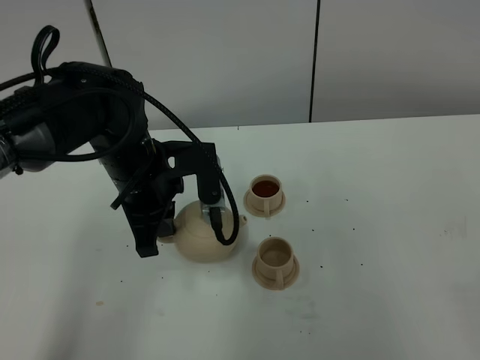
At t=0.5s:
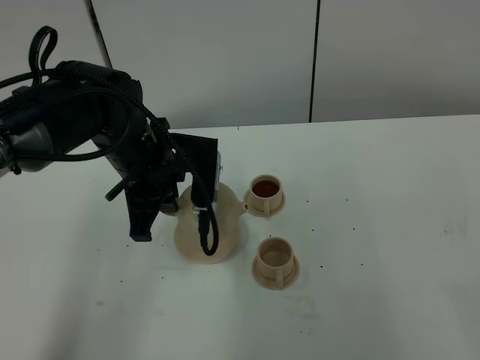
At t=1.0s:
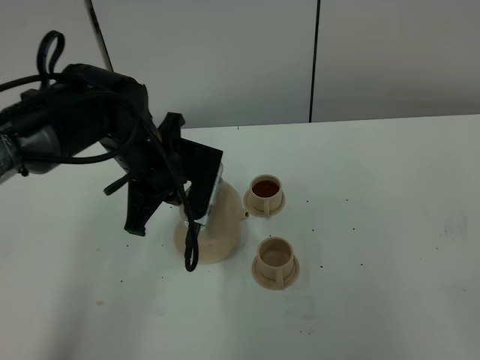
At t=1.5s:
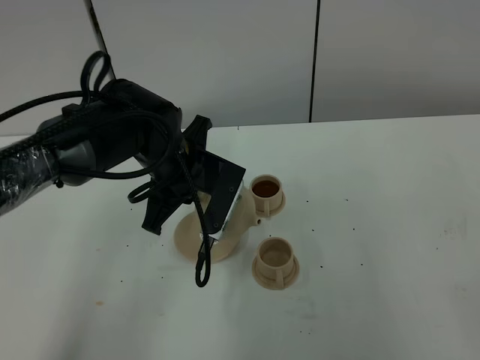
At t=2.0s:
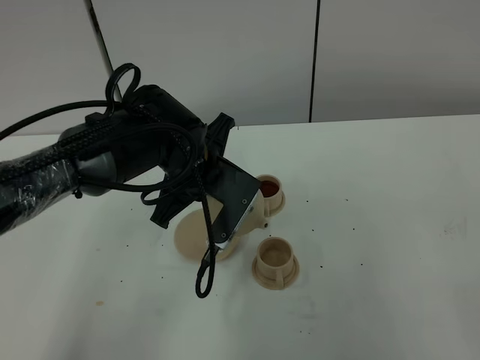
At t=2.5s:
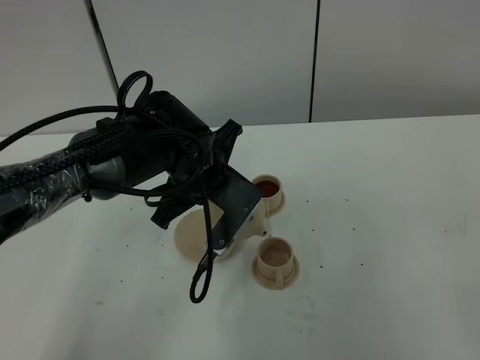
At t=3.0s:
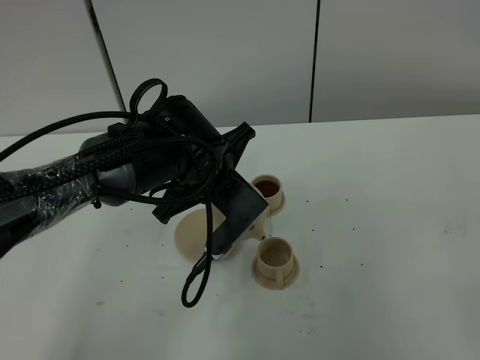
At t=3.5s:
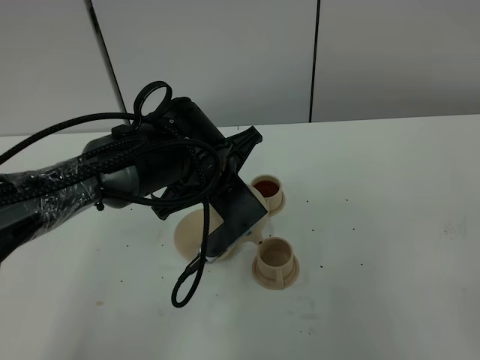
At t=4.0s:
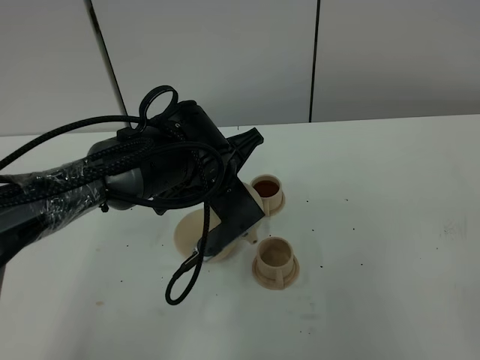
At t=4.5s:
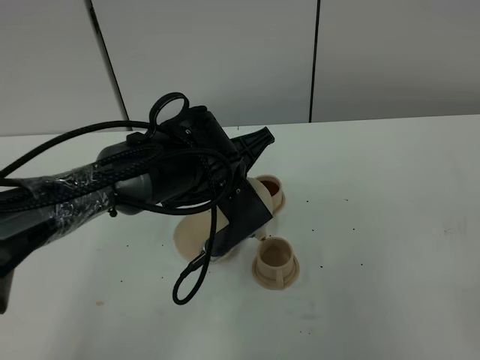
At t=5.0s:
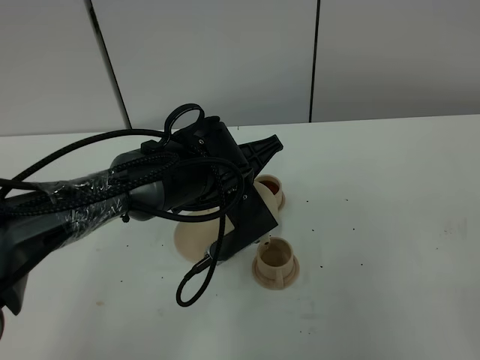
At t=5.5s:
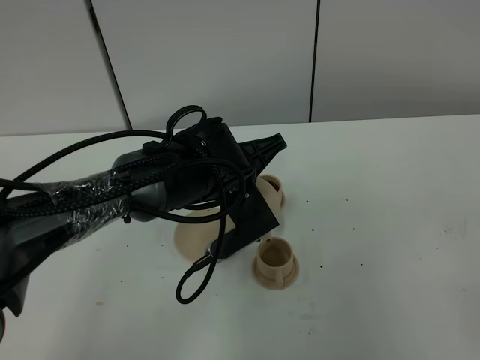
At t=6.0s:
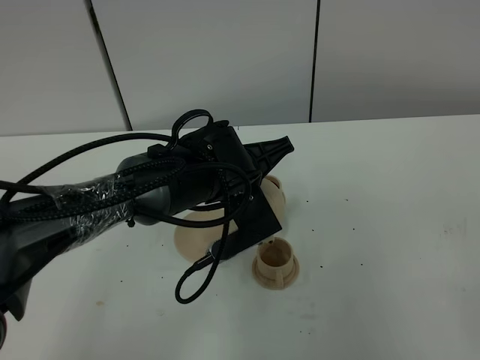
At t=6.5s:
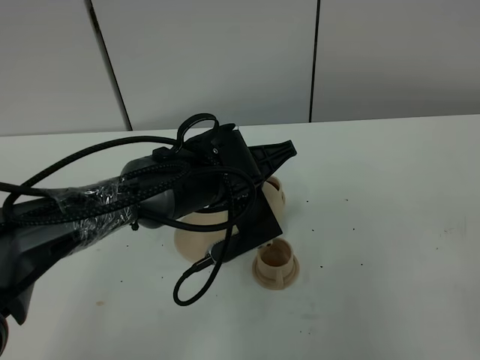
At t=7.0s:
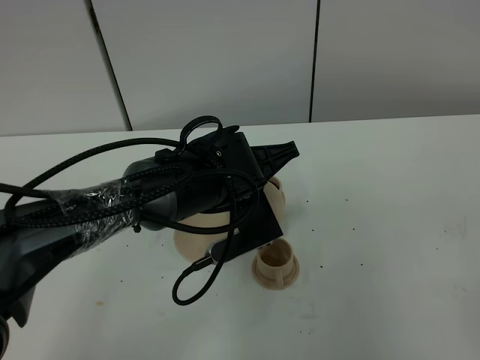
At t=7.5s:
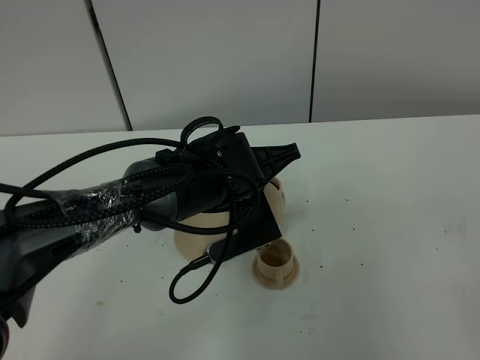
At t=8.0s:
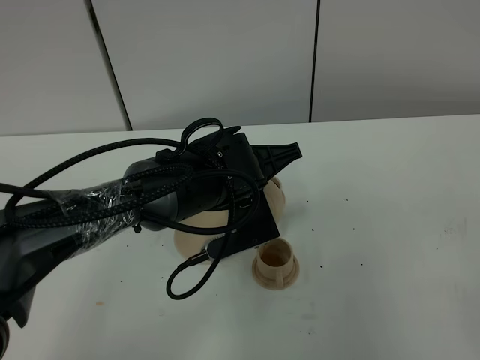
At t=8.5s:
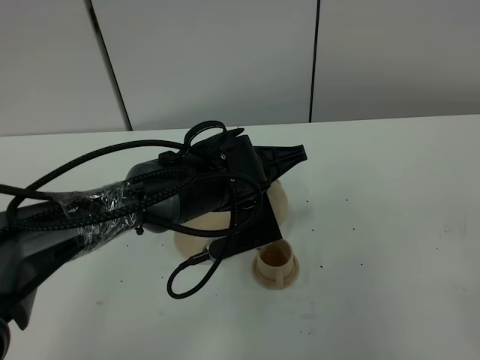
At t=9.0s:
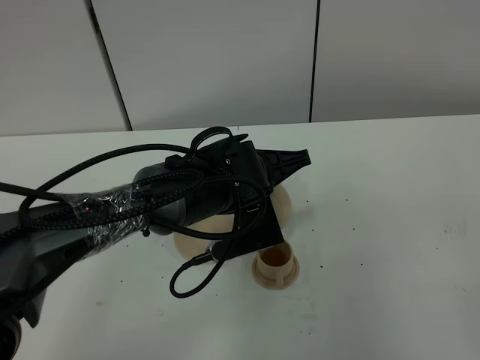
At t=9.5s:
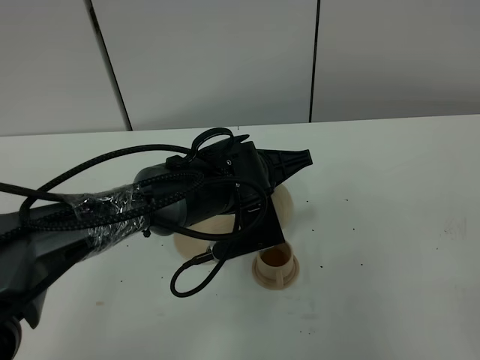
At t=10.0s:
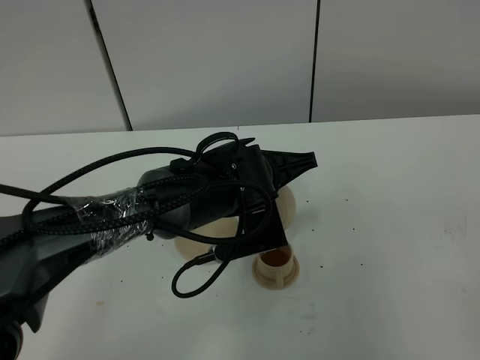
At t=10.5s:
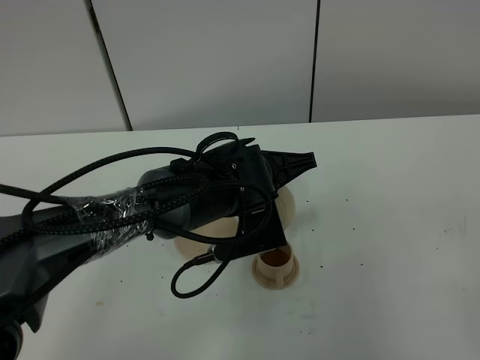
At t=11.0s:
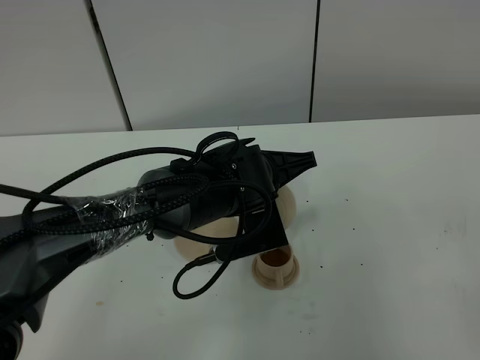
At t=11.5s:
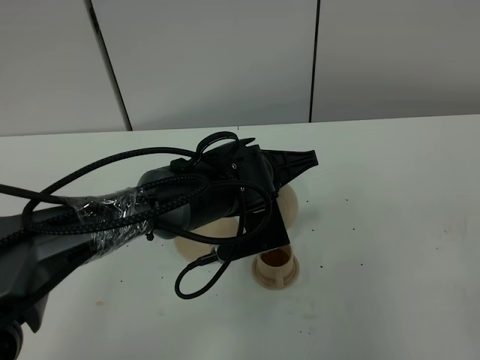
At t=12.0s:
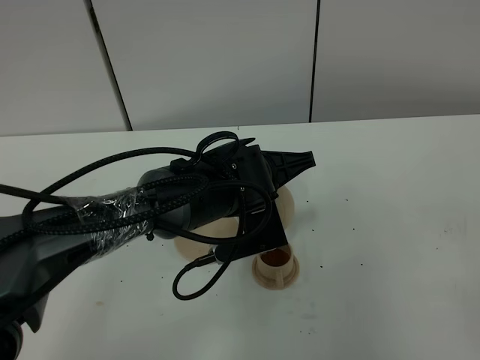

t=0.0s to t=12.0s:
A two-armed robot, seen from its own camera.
Task of the whole recording: grasp the brown teapot and pour the tea into the two brown teacups one by one, put the brown teapot back in its original place.
t=0.0s to t=2.0s: The left gripper goes about 5 cm to the right.
t=4.0s to t=8.0s: The grippers stay close to where they were, moving slightly.
t=8.0s to t=10.0s: The grippers stay close to where they were, moving slightly.
t=10.0s to t=12.0s: Neither gripper changes place.

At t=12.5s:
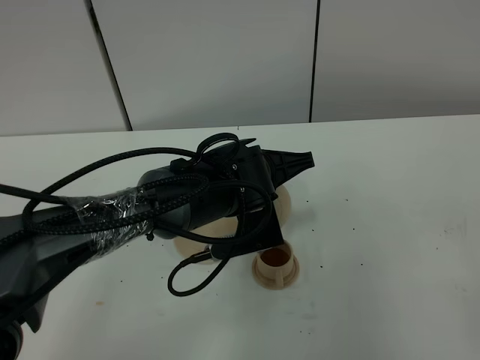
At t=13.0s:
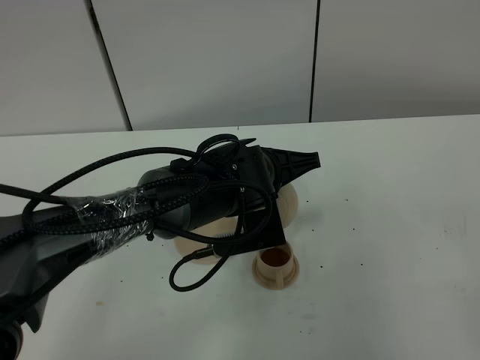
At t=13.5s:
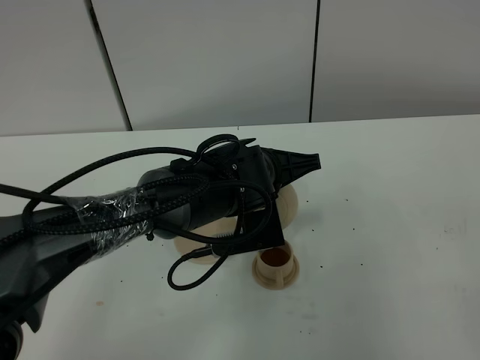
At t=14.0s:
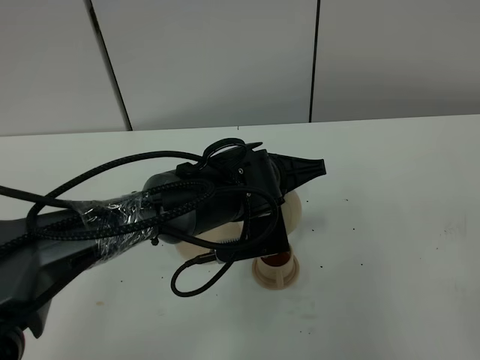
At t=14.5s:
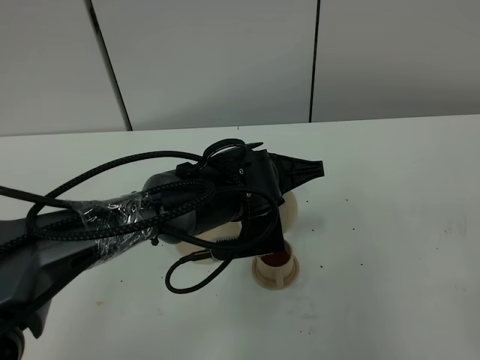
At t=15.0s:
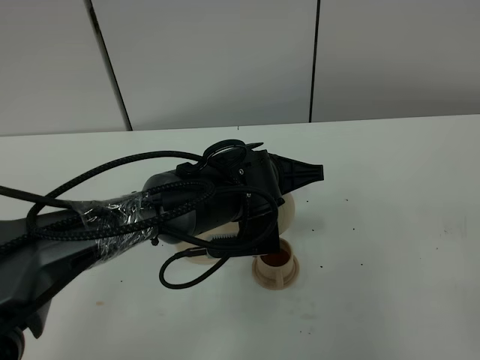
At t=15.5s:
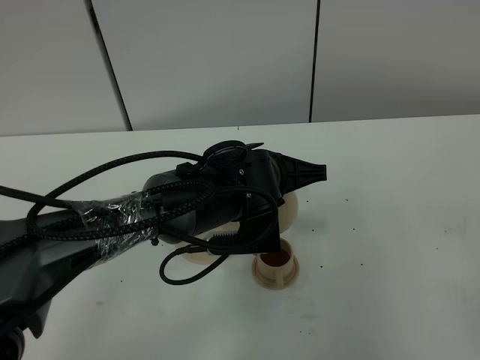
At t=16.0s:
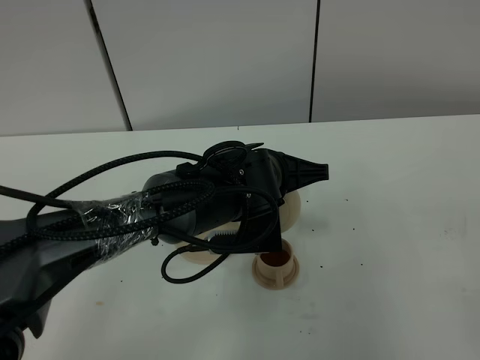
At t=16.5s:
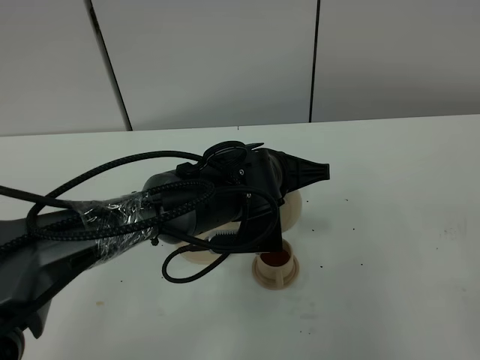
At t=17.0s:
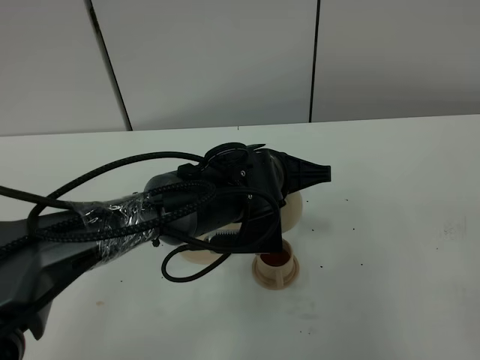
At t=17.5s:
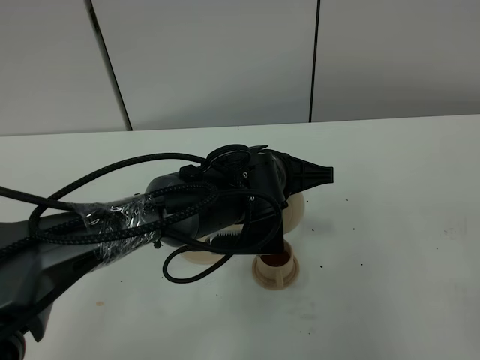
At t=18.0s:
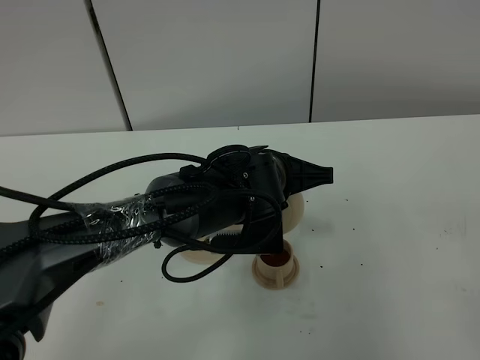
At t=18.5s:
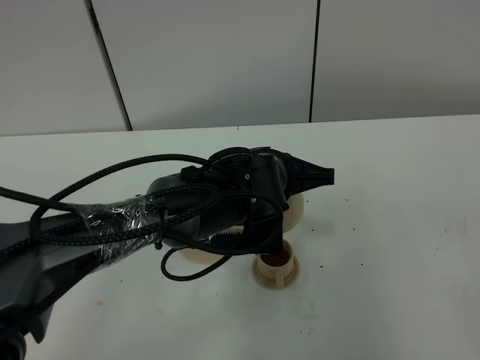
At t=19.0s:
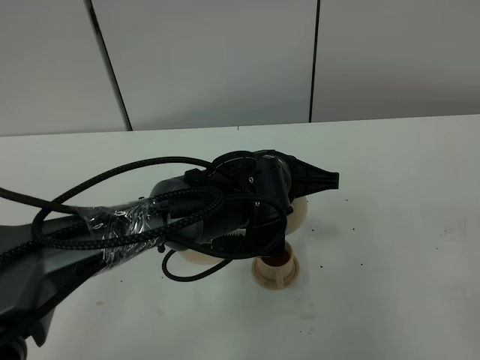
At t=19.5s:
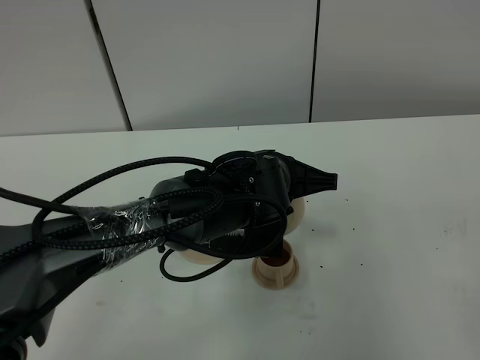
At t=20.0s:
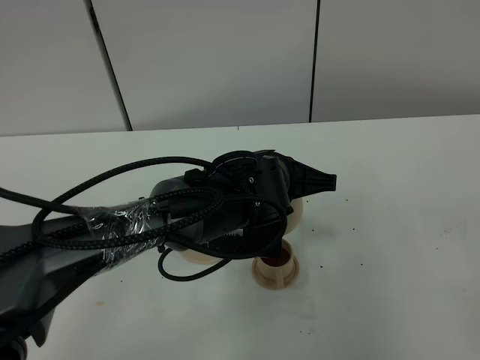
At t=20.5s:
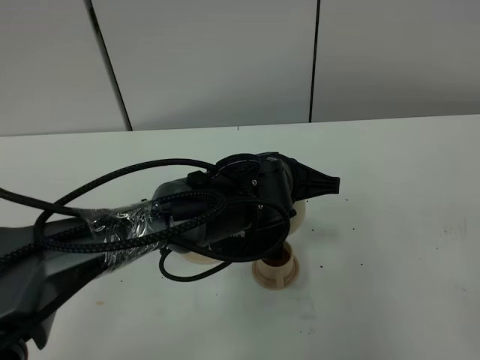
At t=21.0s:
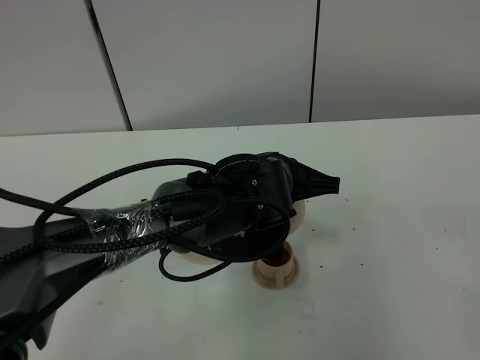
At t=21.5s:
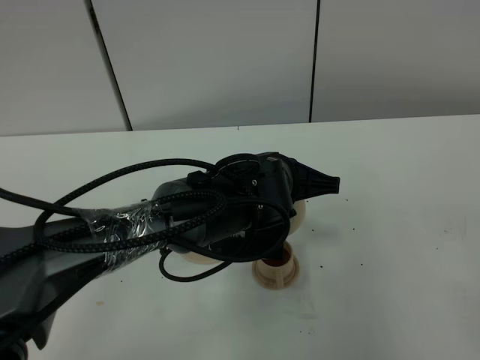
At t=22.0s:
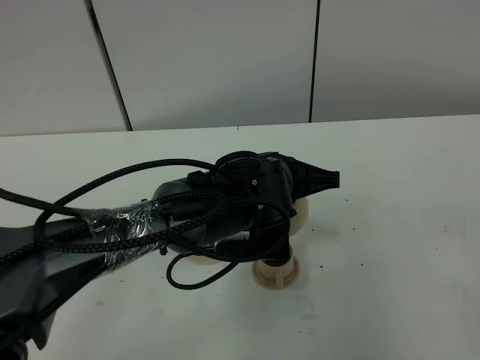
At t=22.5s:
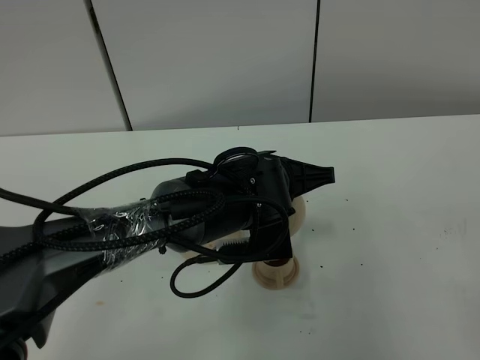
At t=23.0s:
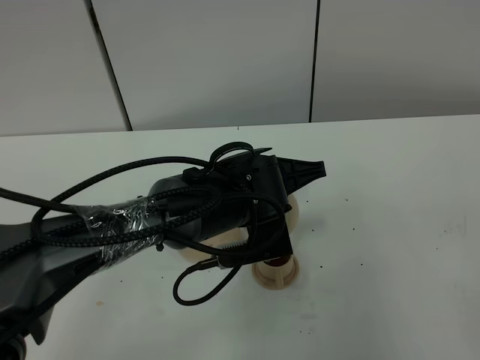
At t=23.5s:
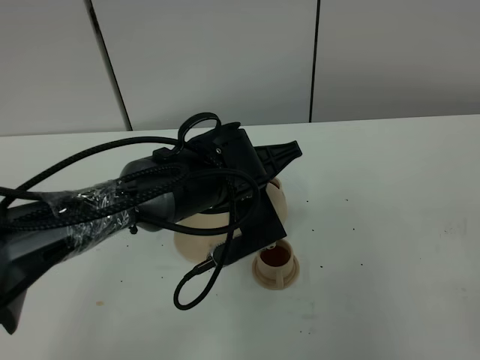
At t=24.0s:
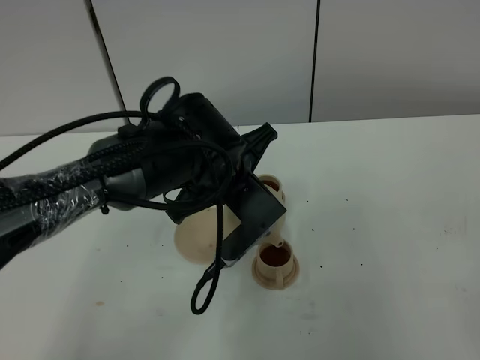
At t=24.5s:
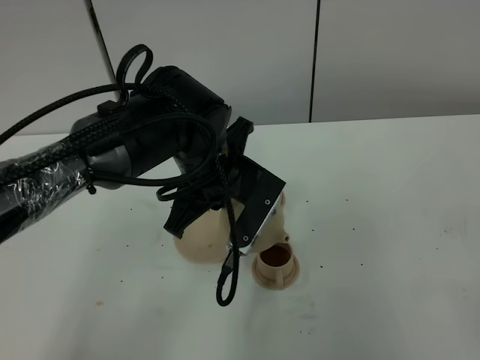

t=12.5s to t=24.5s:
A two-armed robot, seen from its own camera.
Task of the whole recording: grasp the brown teapot and pour the tea into the two brown teacups one by one, put the brown teapot back in its original place.
Step, t=12.5s to t=23.5s: Pour tea into the teacup with the left gripper.
t=12.5s to t=16.5s: The grippers move only a little.
t=16.5s to t=18.5s: Neither gripper changes place.
t=18.5s to t=20.5s: The two grippers keep their place.
t=20.5s to t=22.5s: There are only small adjustments of the grippers.
t=22.5s to t=24.5s: The left gripper travels to the left by about 5 cm.

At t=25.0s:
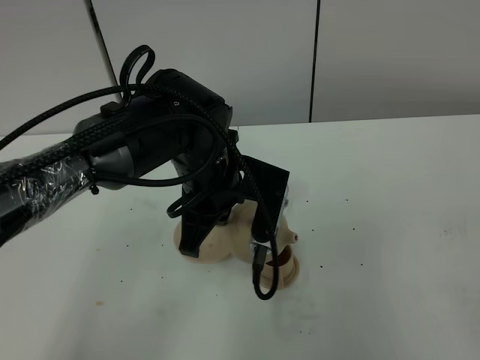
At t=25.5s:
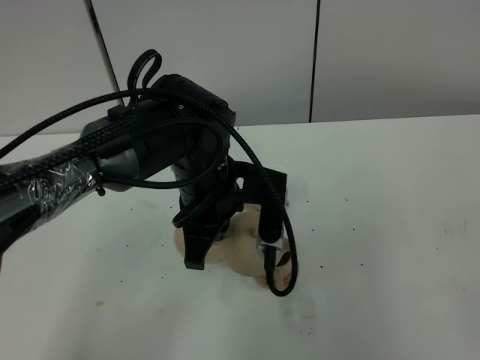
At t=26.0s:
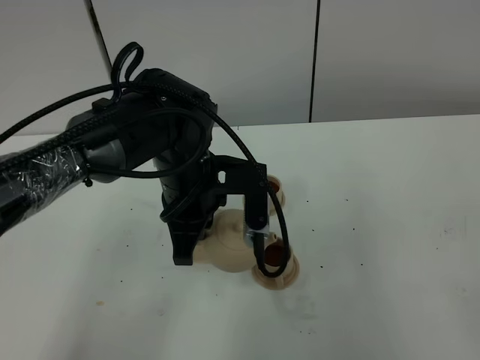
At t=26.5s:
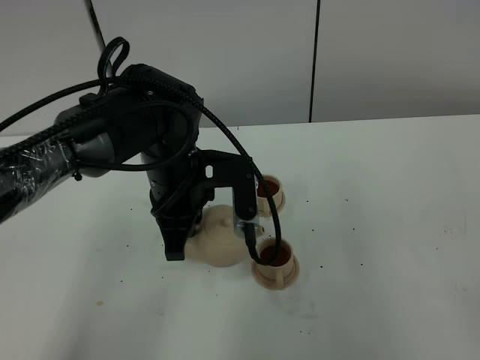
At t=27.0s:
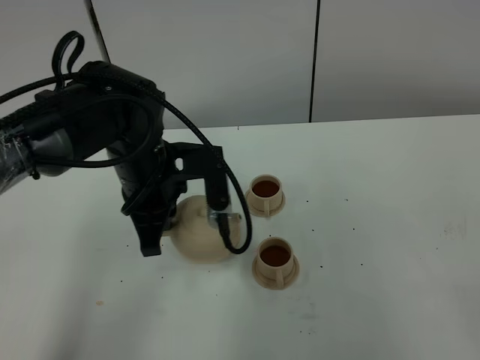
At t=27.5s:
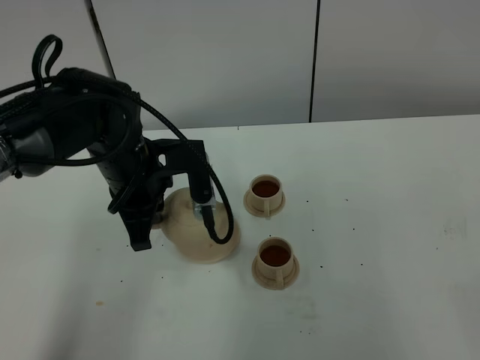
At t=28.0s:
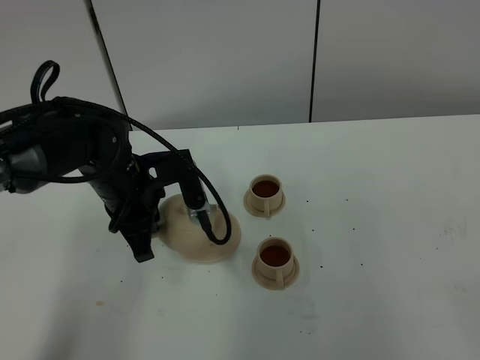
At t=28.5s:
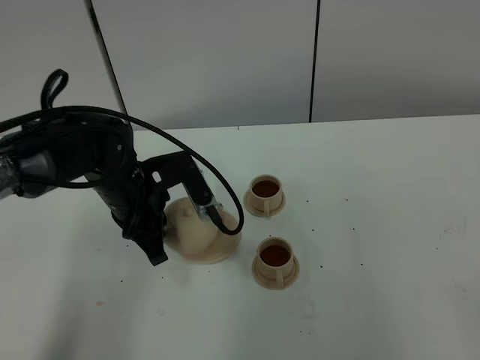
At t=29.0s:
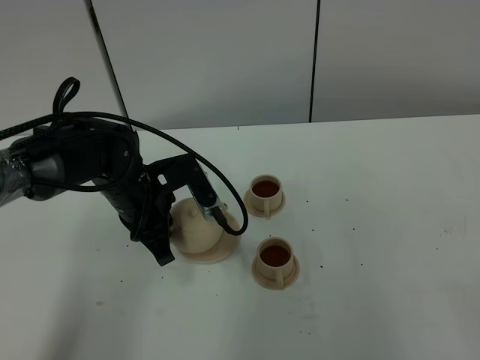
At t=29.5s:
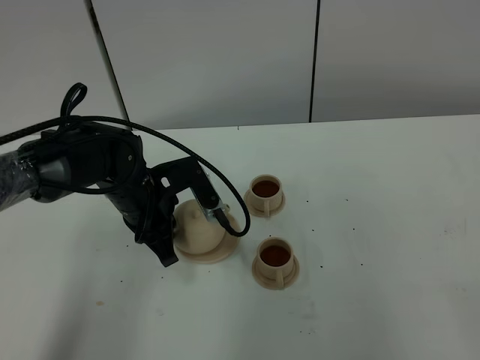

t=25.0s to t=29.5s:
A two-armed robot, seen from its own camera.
Task of the whole recording: grasp the brown teapot and pour the tea into the two brown teacups one by one, put the brown teapot back in its original place.
t=25.0s to t=27.0s: The left gripper is displaced to the left by some 10 cm.
t=27.0s to t=29.5s: The left gripper moves downward, about 5 cm.
